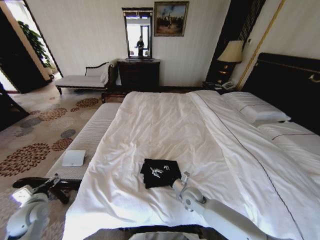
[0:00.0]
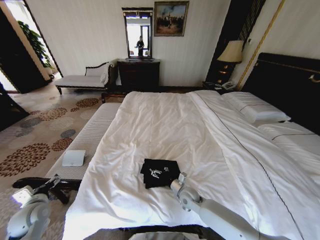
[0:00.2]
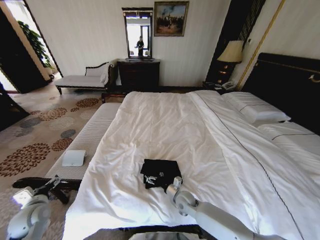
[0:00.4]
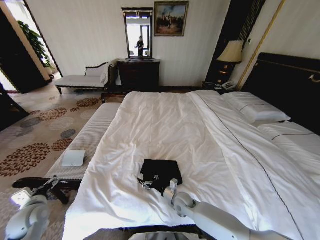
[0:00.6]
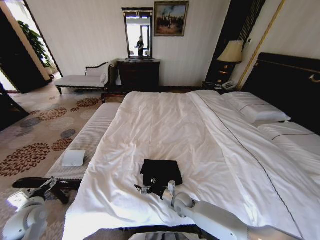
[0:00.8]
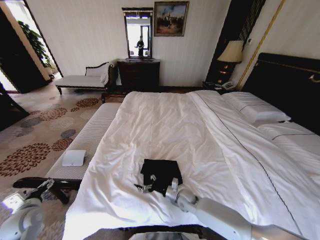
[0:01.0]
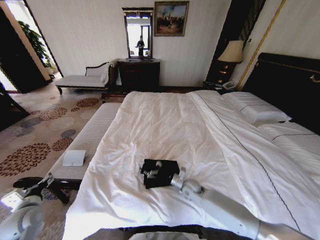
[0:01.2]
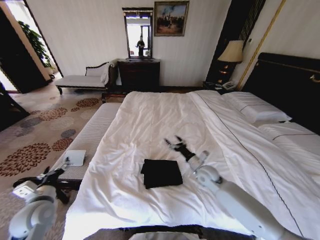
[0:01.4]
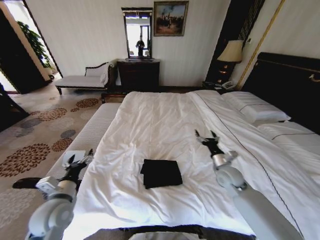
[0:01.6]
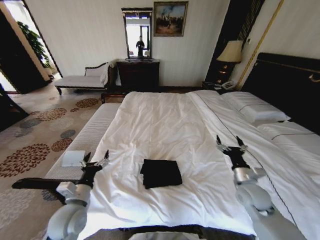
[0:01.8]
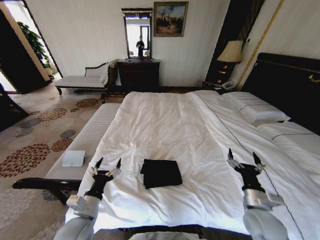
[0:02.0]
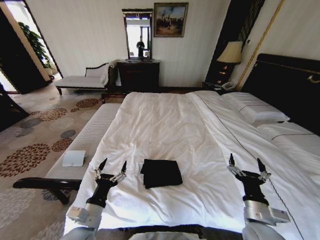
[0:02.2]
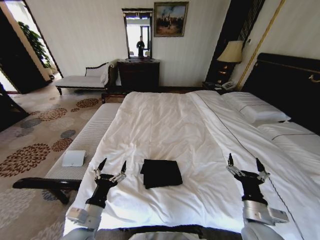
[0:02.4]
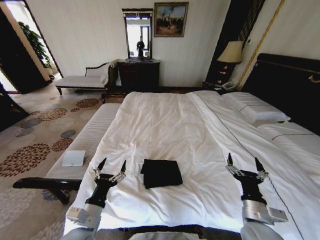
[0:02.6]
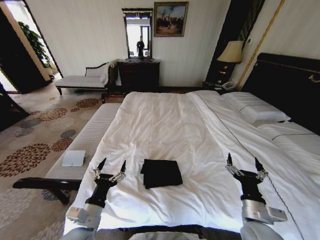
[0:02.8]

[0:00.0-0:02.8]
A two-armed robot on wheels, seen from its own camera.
Task of the whole recording: Fold the clothes on the bed.
0:00.0 to 0:01.4: The right gripper goes approximately 15 cm upward, forward and to the right, while the left gripper shifts by roughly 5 cm.
0:01.4 to 0:02.8: The right gripper is displaced backward by approximately 20 cm. The left gripper is displaced to the right and backward by roughly 20 cm.

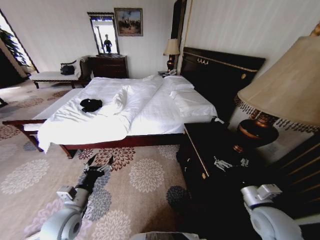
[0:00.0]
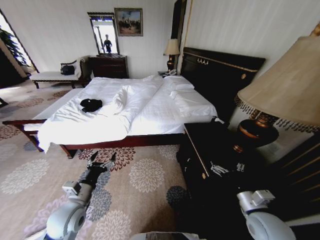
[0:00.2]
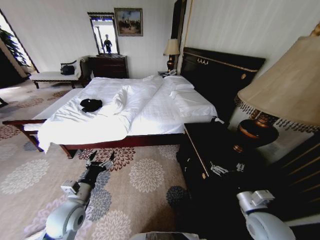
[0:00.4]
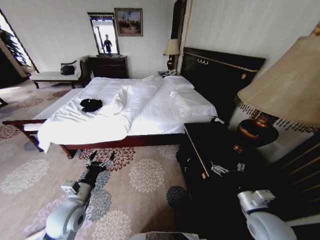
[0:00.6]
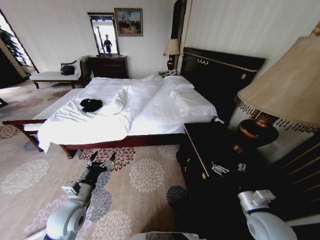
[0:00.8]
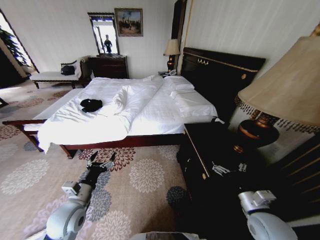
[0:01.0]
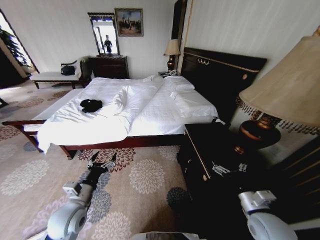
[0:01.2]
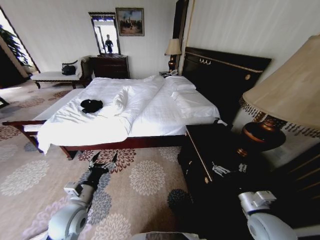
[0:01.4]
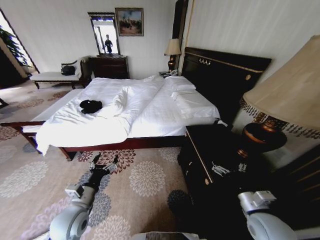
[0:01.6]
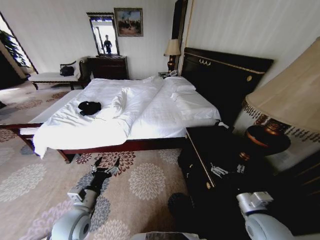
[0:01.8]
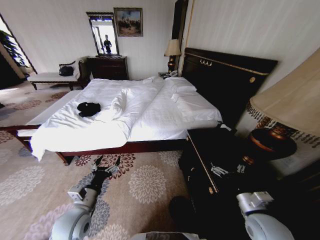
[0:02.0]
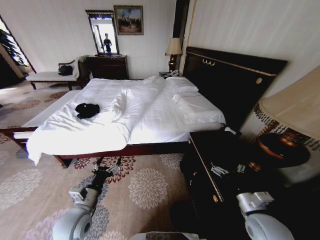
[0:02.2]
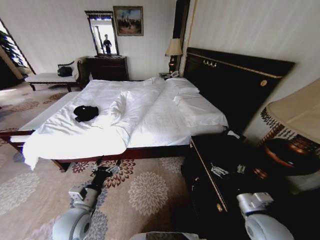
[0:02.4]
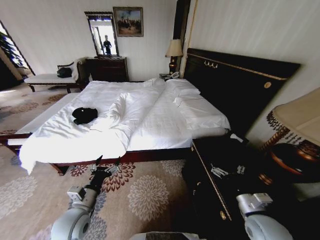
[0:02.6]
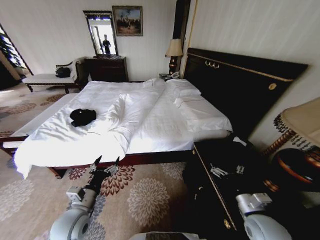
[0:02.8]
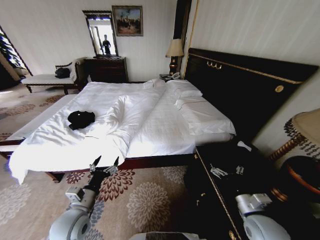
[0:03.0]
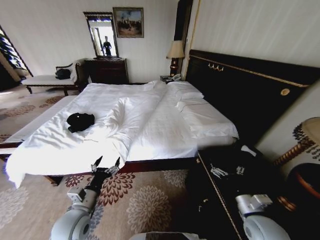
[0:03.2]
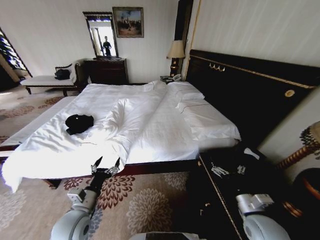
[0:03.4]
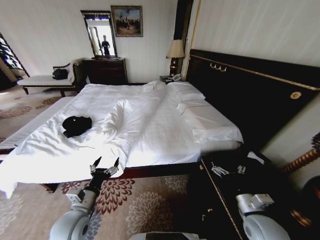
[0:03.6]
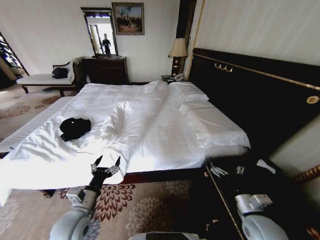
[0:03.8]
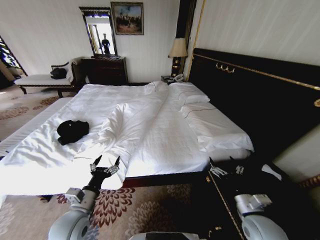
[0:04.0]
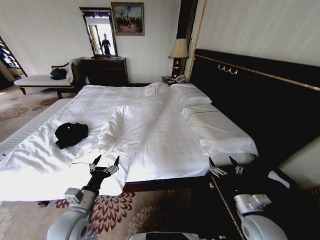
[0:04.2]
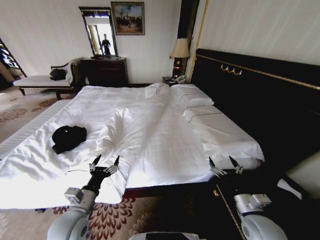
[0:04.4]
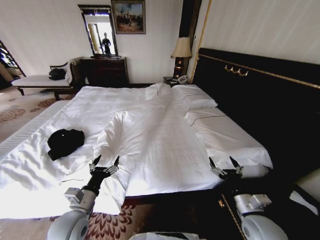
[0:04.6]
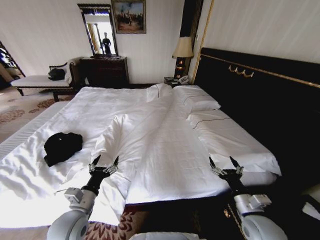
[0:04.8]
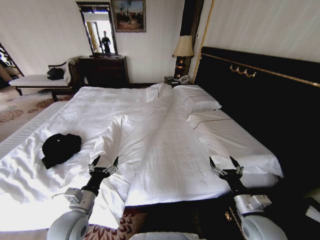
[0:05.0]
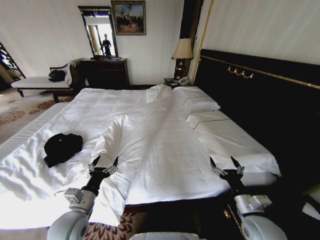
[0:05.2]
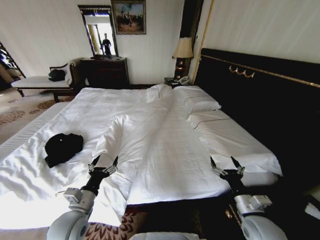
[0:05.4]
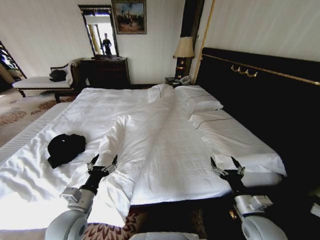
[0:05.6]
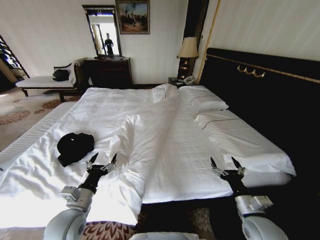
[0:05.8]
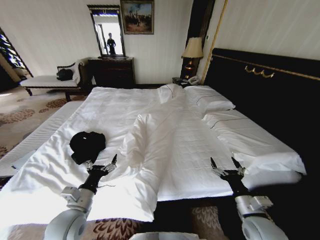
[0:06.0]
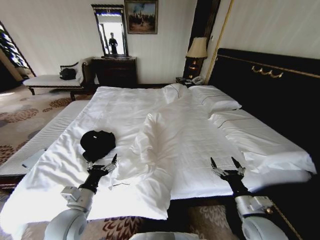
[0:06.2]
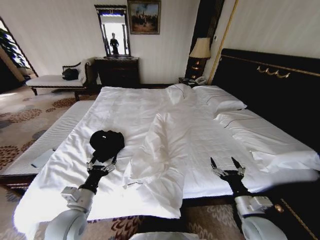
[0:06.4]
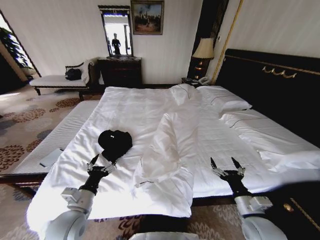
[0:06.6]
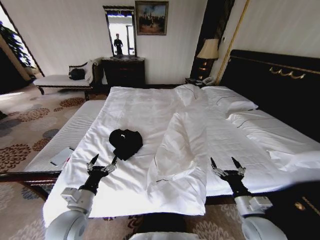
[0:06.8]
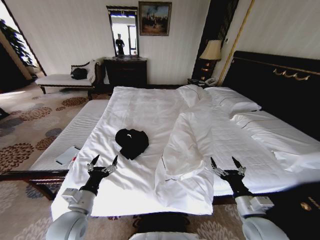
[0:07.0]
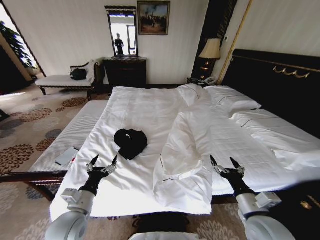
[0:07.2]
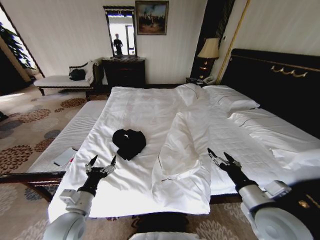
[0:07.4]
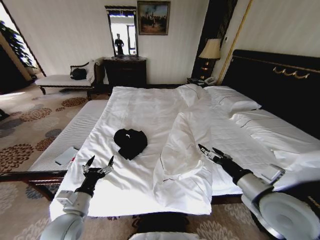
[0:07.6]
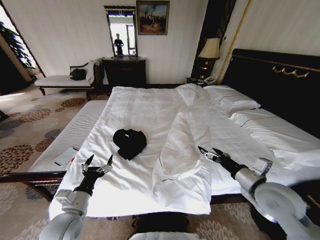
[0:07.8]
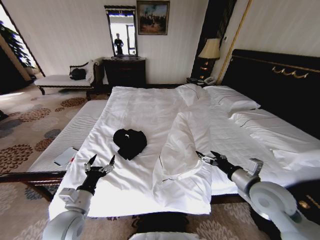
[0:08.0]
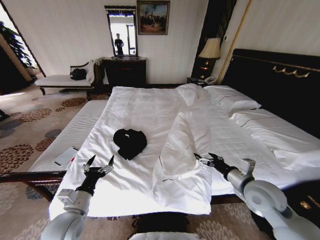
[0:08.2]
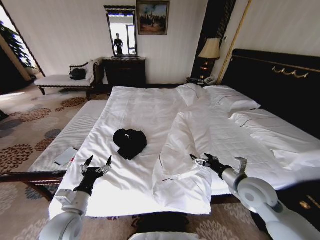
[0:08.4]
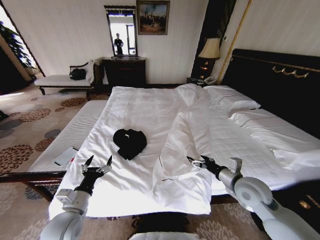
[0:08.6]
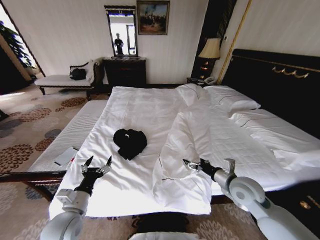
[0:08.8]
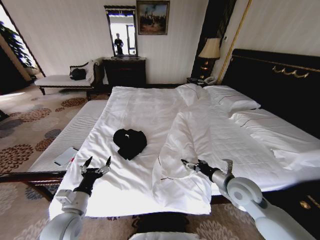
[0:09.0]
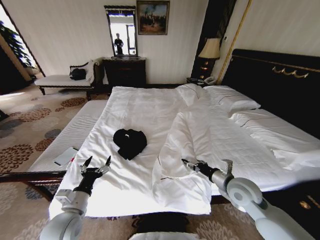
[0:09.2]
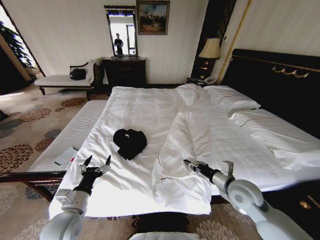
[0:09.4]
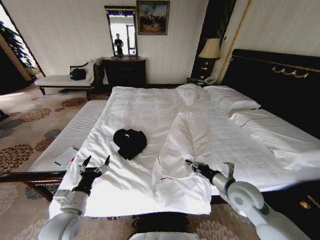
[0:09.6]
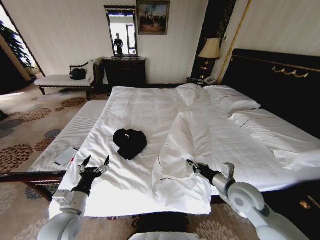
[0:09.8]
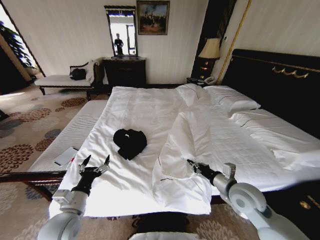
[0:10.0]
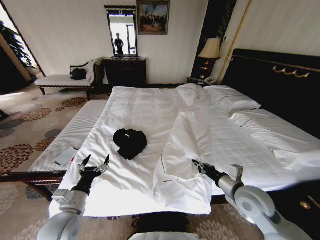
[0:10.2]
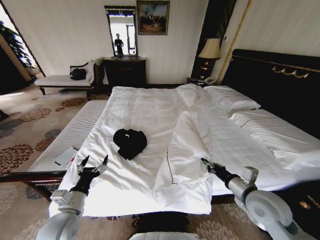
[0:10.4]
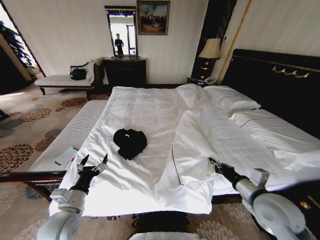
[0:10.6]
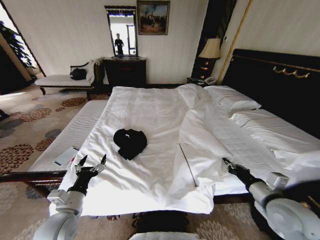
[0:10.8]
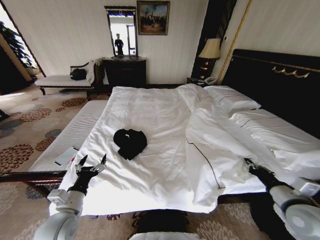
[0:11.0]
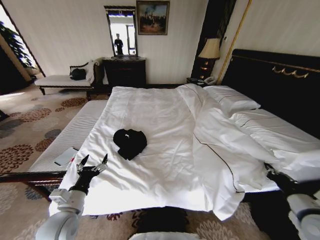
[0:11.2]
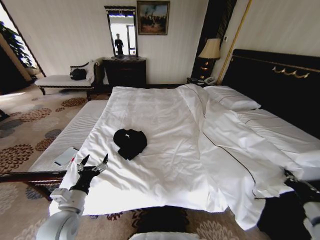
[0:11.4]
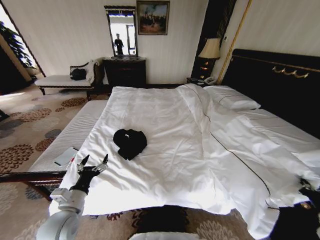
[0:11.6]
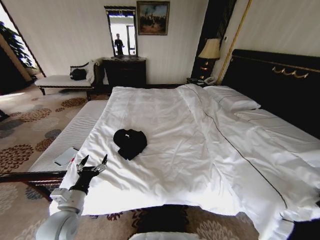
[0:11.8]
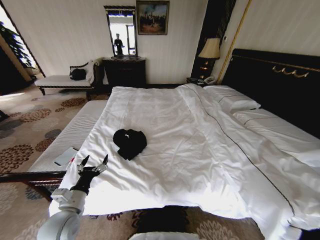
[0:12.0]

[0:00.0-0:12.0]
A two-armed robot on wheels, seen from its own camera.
Task of the whole recording: Fold the clothes on the bed.
0:06.0 to 0:07.6: The right gripper moves upward, about 15 cm.
0:07.6 to 0:09.0: The right gripper is displaced downward and forward by some 10 cm.
0:09.0 to 0:10.4: The right gripper shifts some 5 cm backward, and closes up.
0:10.4 to 0:12.0: The right gripper shifts some 30 cm to the right and backward.

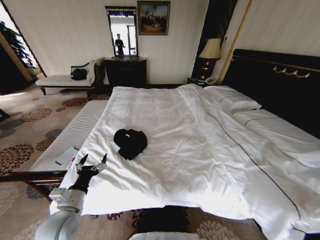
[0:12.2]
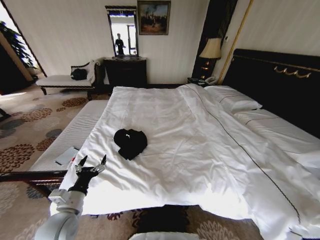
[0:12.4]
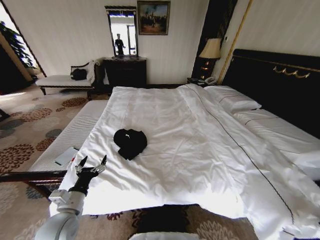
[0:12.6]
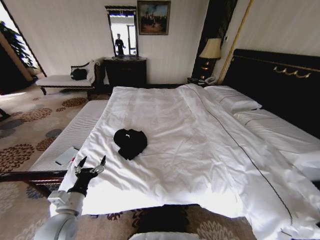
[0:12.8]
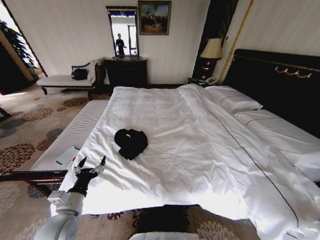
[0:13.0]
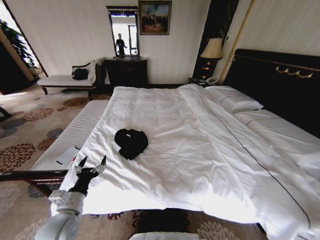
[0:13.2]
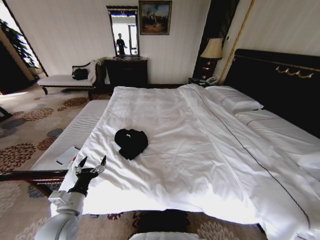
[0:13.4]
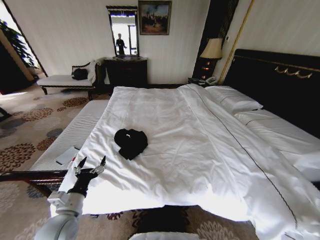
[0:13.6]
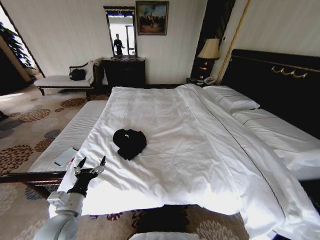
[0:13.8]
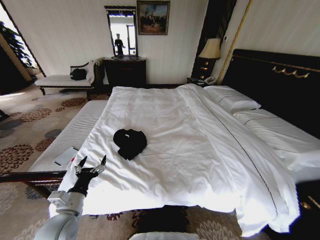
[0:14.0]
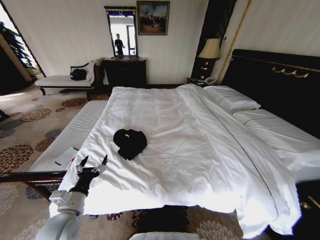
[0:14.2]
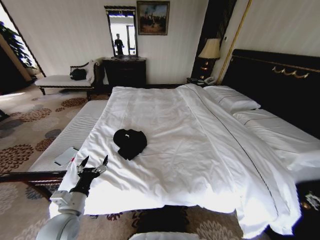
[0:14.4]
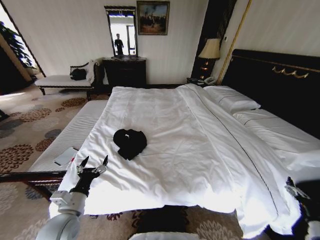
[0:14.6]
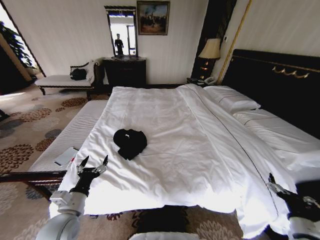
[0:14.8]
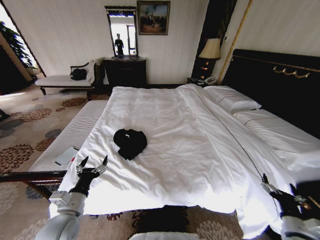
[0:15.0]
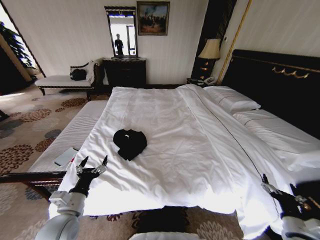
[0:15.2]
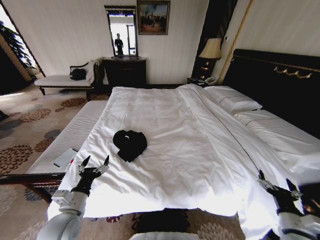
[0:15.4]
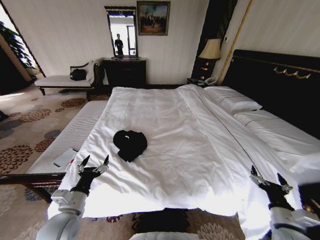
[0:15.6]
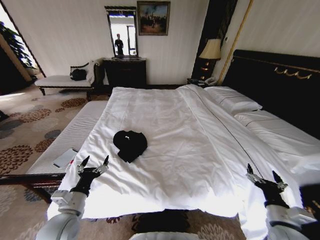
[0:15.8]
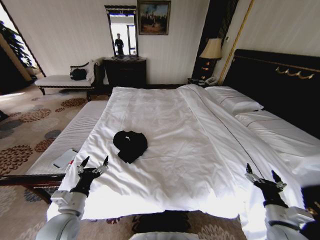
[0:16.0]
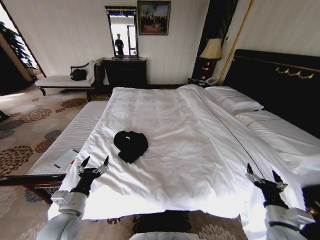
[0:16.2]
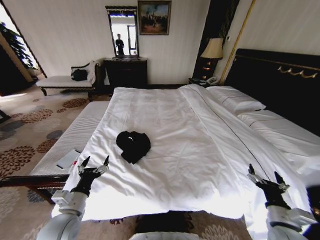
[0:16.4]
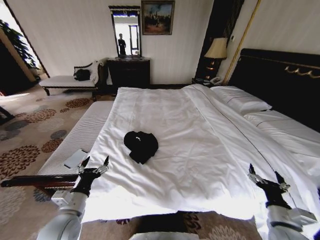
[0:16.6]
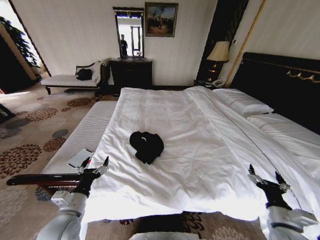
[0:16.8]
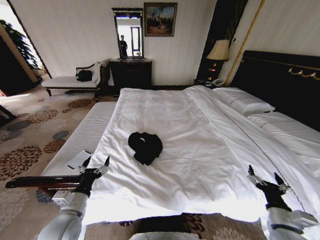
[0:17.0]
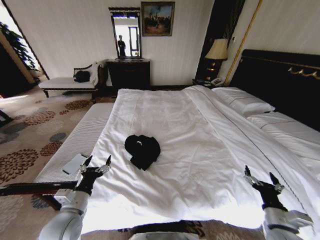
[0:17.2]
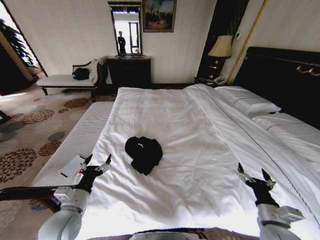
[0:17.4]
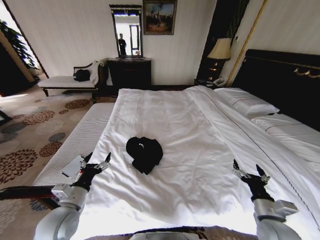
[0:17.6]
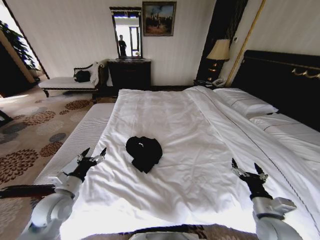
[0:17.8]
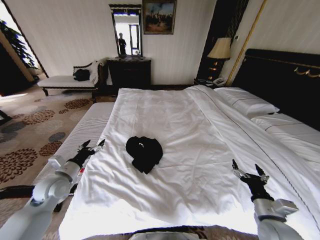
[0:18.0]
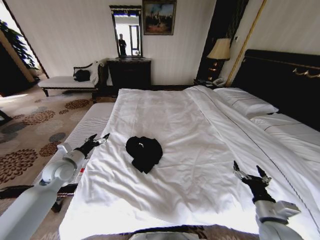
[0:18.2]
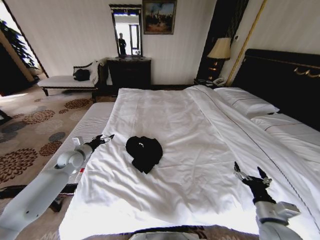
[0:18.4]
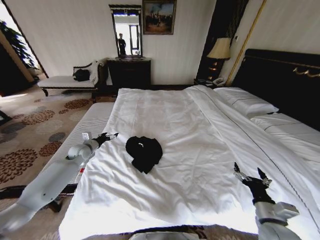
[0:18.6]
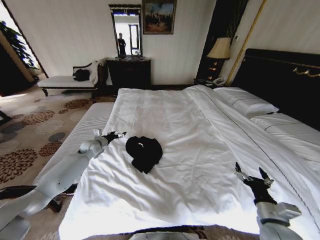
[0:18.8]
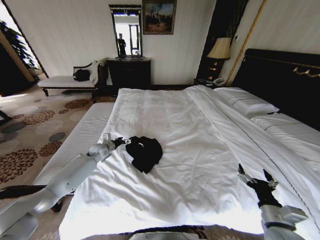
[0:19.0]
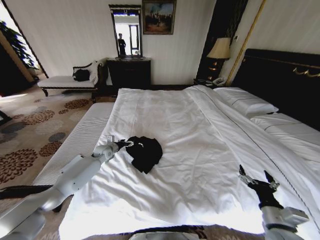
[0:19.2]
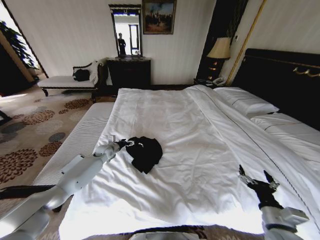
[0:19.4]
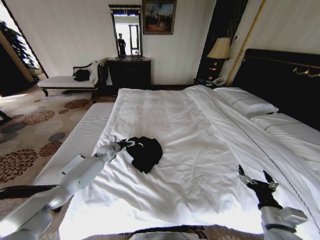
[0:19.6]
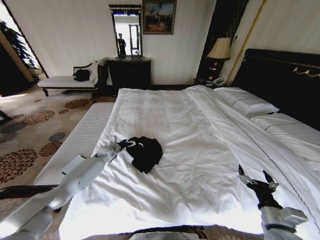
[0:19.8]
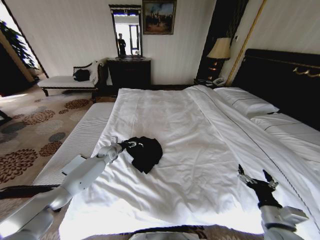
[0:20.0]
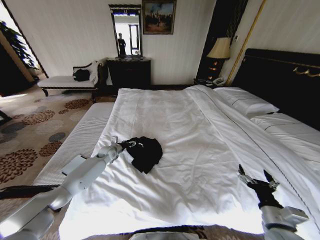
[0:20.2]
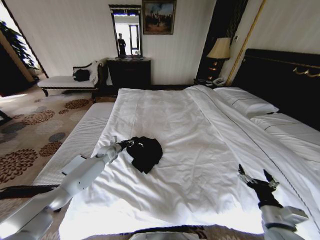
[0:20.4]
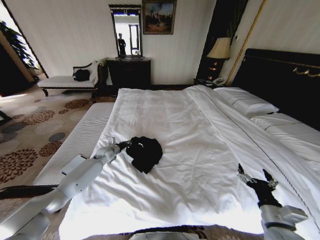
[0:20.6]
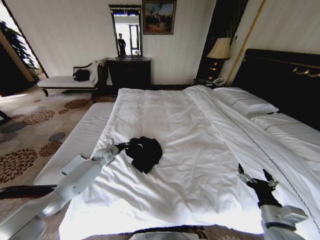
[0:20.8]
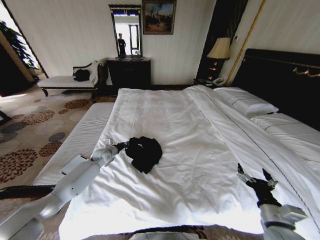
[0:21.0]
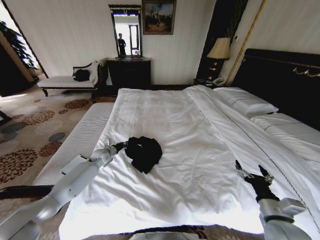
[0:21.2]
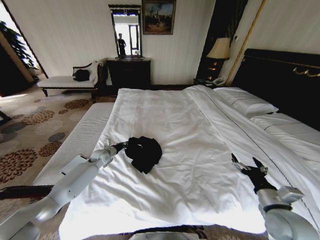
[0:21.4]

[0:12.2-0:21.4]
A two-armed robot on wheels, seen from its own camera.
Task of the whole recording: Fold the clothes on the bed.
0:12.2 to 0:13.8: The right gripper travels downward by about 5 cm.
0:13.8 to 0:15.2: The right gripper goes some 15 cm to the left, and opens.
0:15.2 to 0:16.8: The right gripper changes place by about 5 cm.
0:16.8 to 0:18.4: The left gripper heads forward and to the left, covering about 25 cm.
0:18.4 to 0:19.8: The left gripper shifts about 15 cm to the right, forward and downward.
0:19.8 to 0:21.4: The right gripper changes place by approximately 5 cm; the left gripper closes up.
